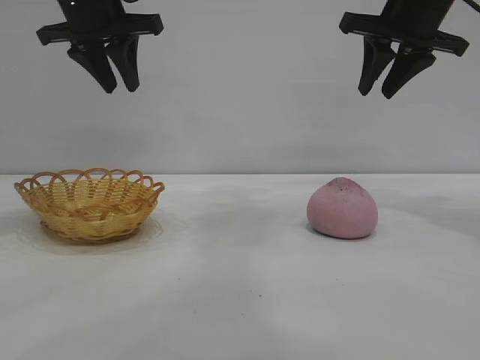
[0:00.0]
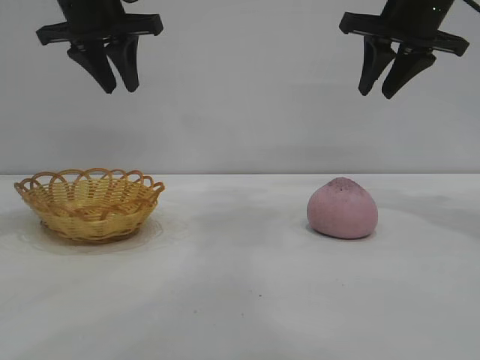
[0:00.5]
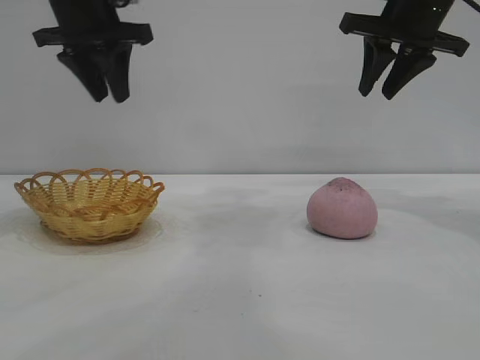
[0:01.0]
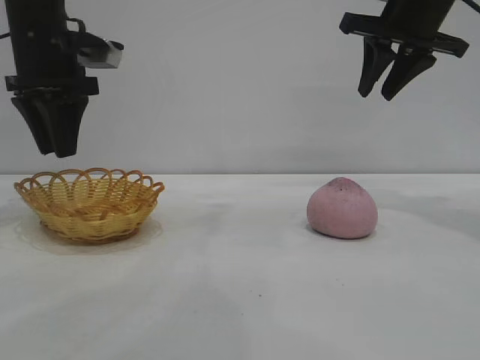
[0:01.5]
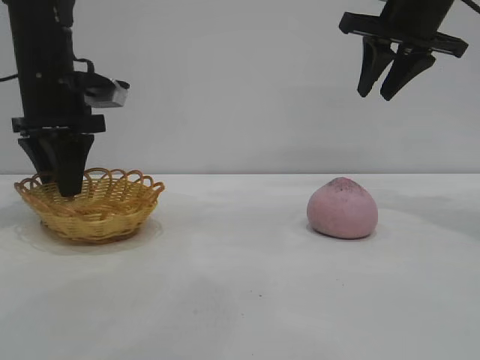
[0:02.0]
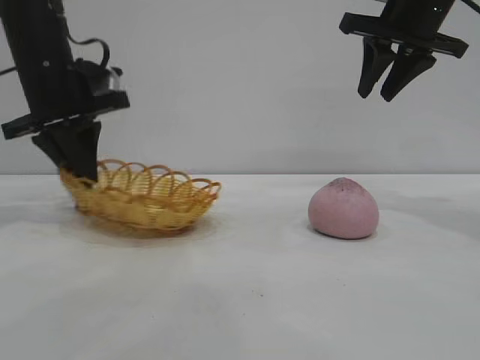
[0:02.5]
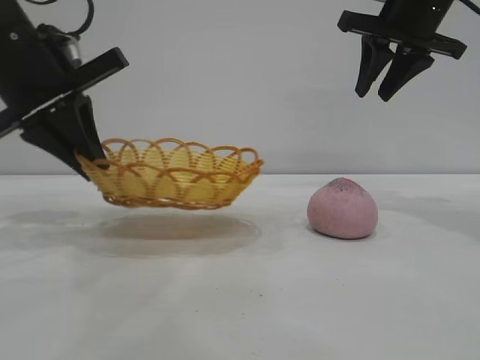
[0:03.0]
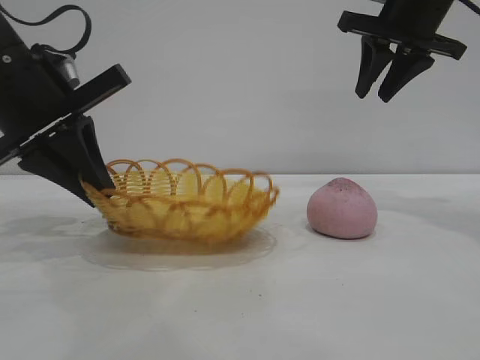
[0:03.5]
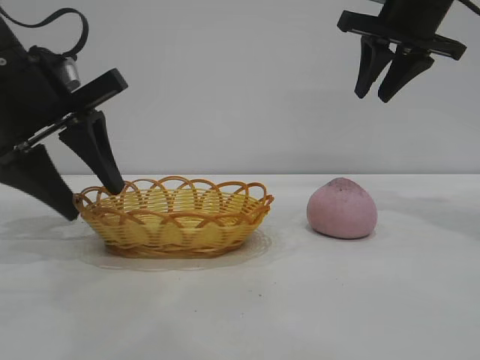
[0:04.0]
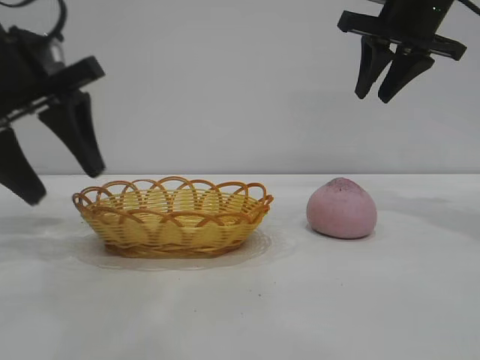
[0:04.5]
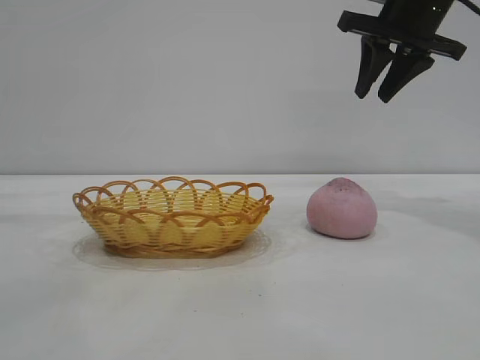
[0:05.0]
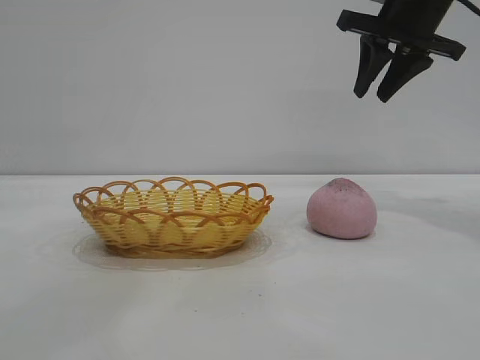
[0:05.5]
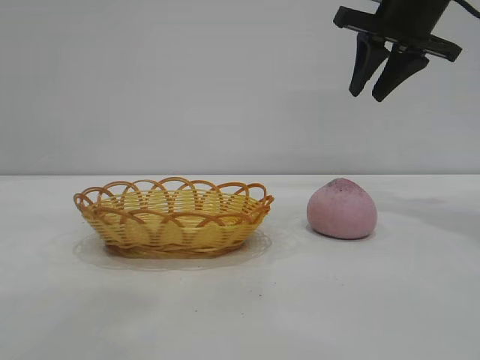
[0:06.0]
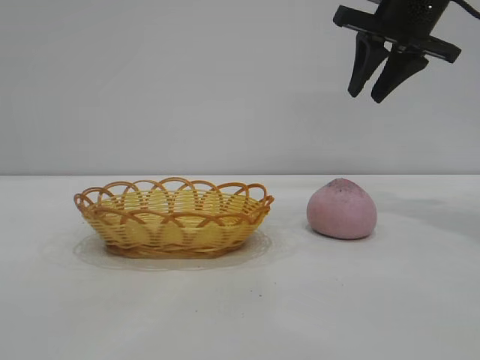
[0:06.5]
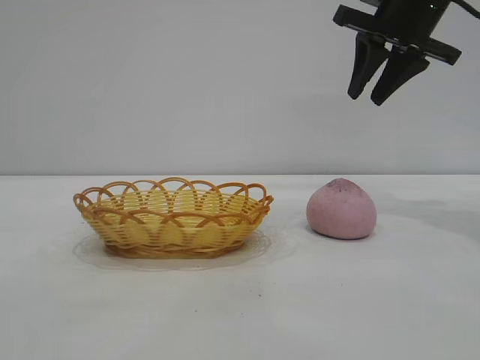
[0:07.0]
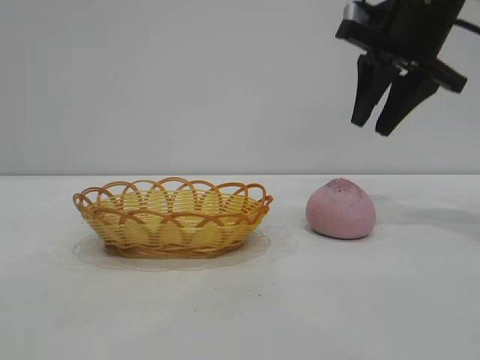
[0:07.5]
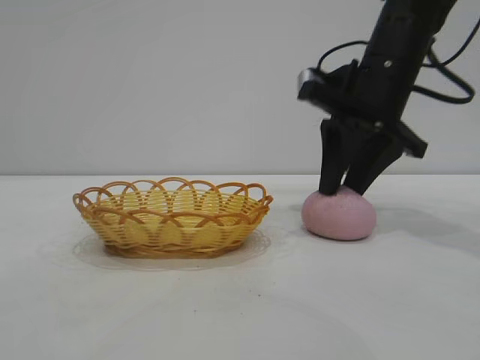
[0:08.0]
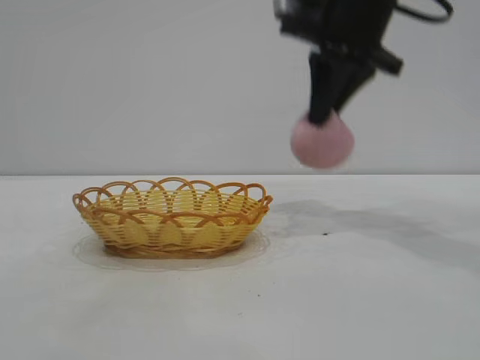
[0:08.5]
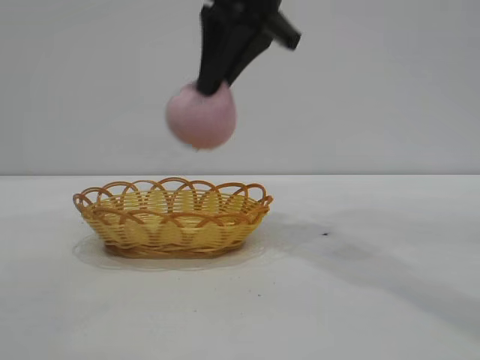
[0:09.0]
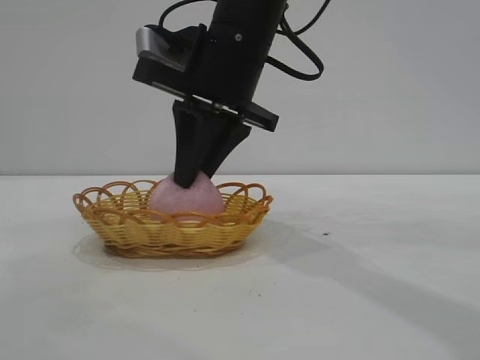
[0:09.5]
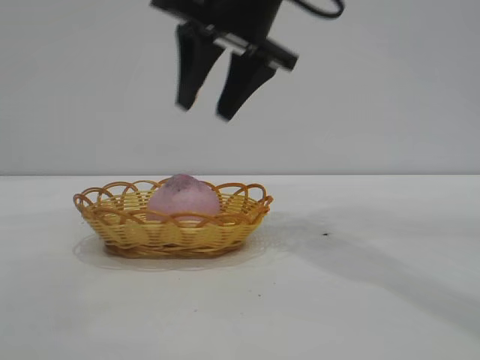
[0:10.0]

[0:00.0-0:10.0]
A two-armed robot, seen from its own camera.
Task of the whole recording: pick up the peach and put it into the basket.
Step, 0:00.0 to 0:04.5: Move the basket to the center of view.
Step, 0:05.0 to 0:08.0: Pick up the peach.

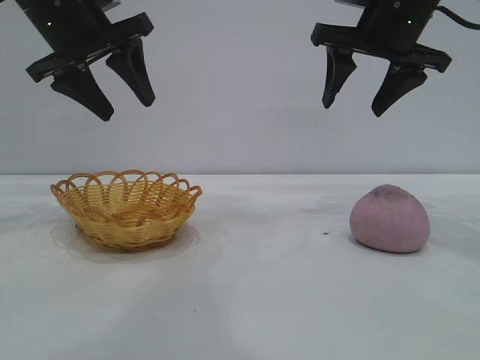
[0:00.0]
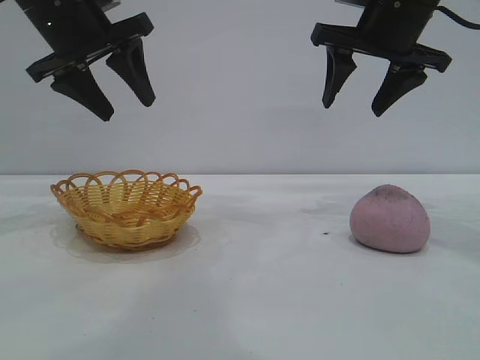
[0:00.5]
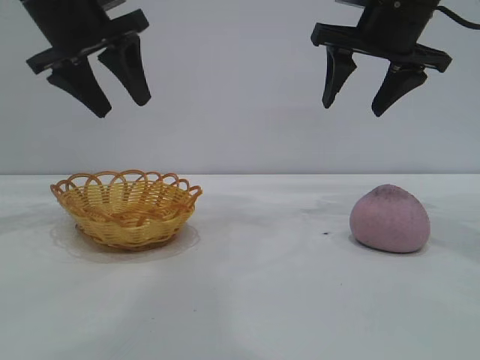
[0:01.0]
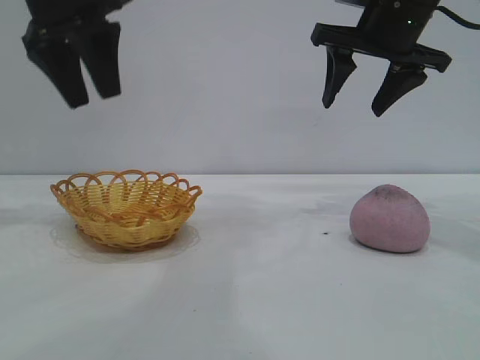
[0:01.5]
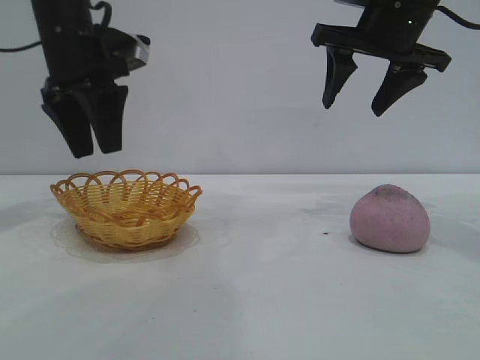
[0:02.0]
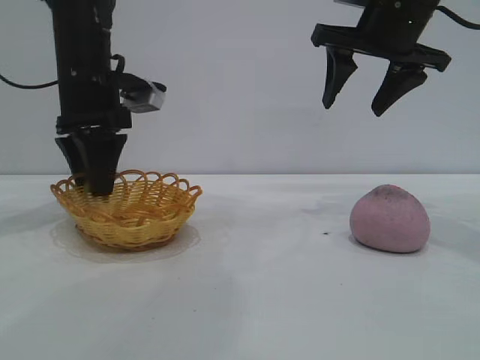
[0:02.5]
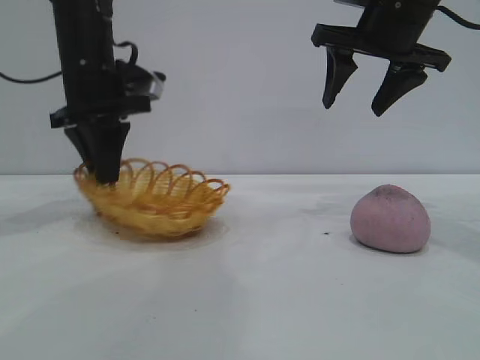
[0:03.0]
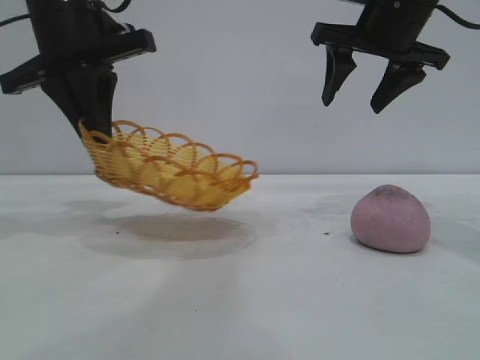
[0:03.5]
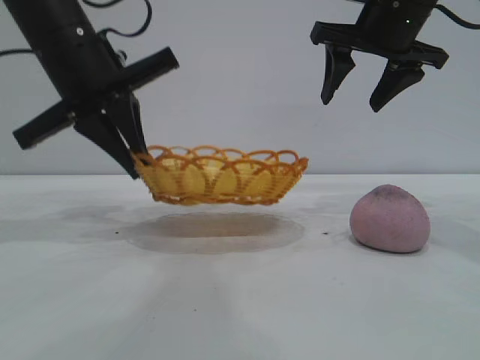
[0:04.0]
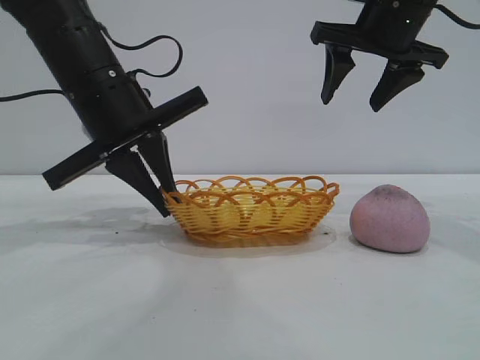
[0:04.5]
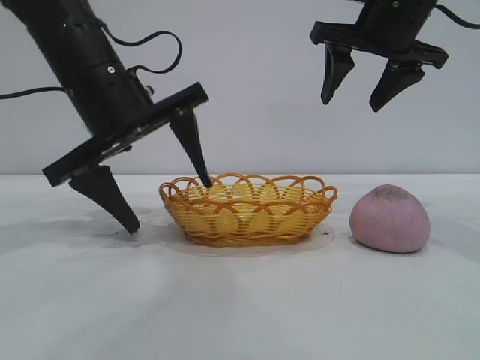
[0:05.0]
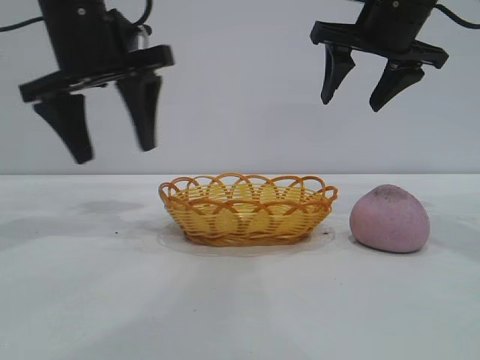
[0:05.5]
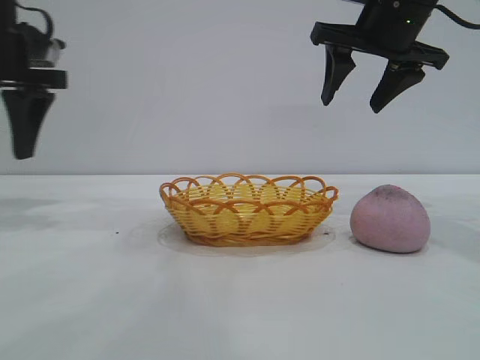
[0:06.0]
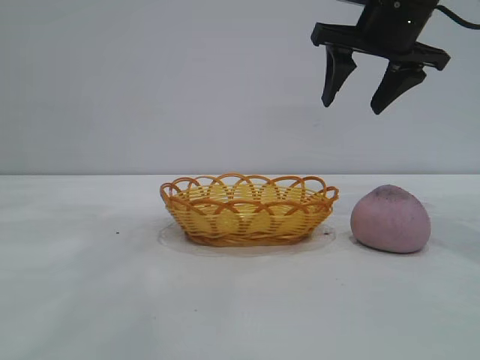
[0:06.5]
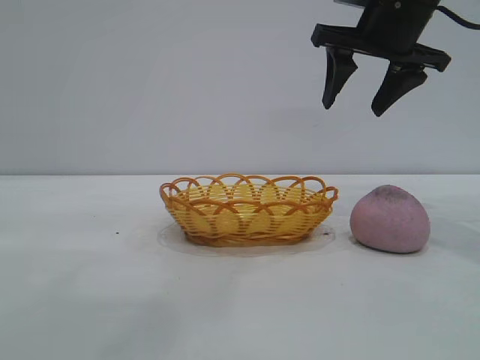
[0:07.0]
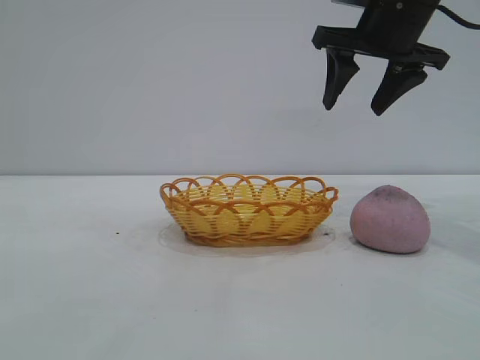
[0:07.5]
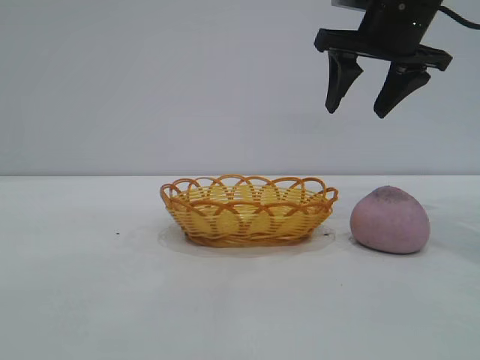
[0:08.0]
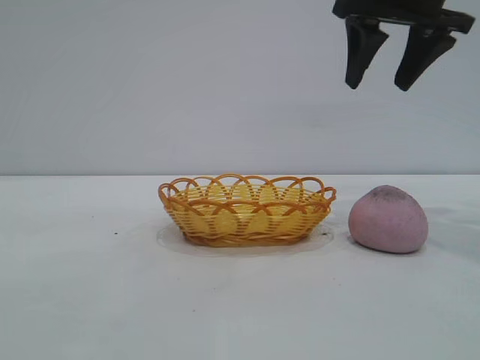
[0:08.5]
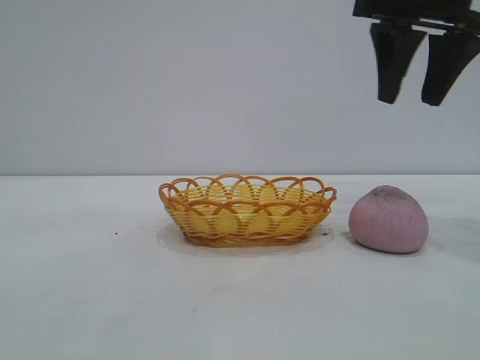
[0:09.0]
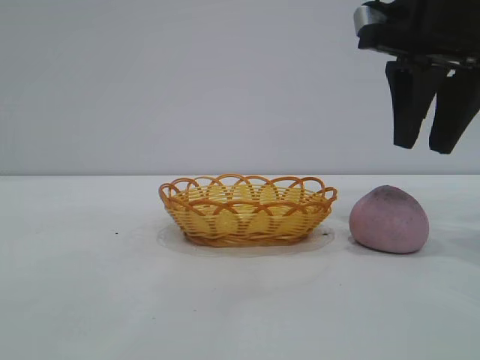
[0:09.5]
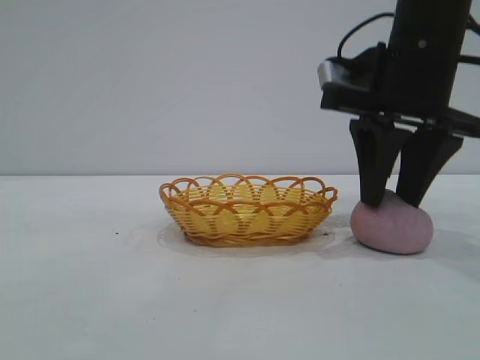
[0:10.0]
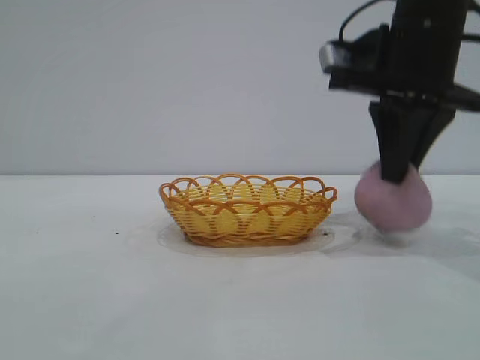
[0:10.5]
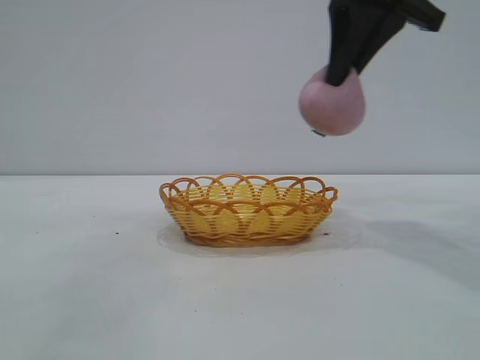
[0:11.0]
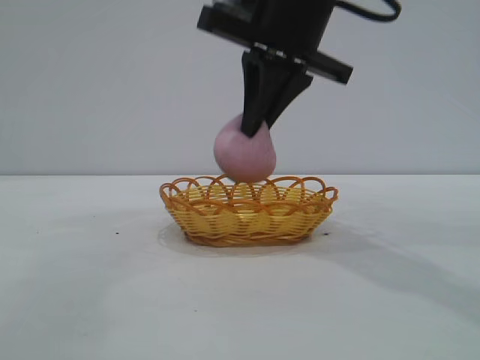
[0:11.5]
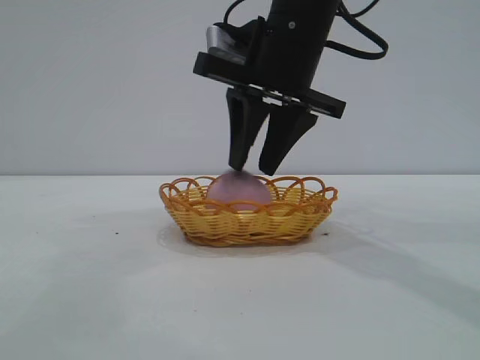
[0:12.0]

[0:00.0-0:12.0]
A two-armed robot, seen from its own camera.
Task of the whole recording: pick up the peach and put it into the basket.
Step, 0:00.0 to 0:05.0: Move the basket to the center of view.
Step, 0:05.5 to 0:10.5: Pick up the peach.
